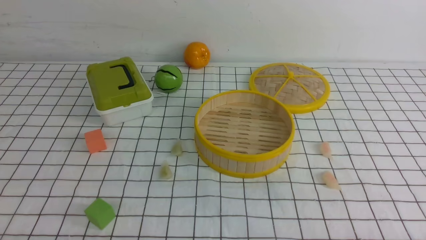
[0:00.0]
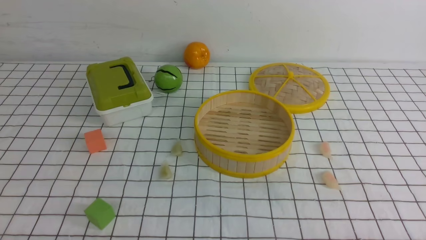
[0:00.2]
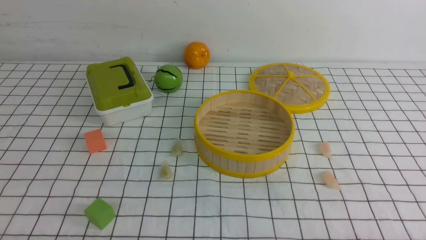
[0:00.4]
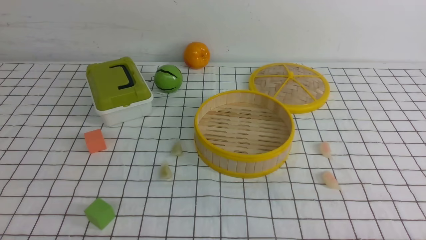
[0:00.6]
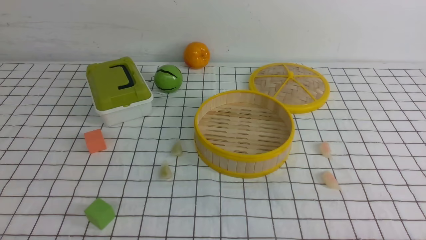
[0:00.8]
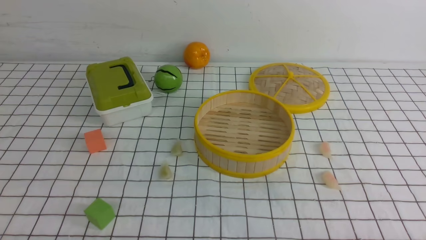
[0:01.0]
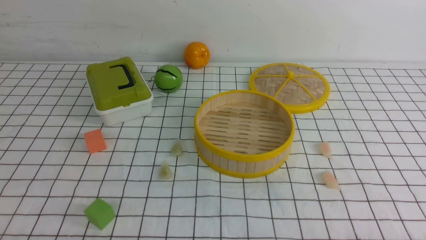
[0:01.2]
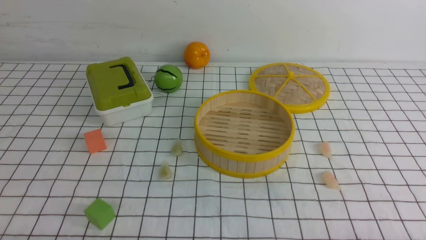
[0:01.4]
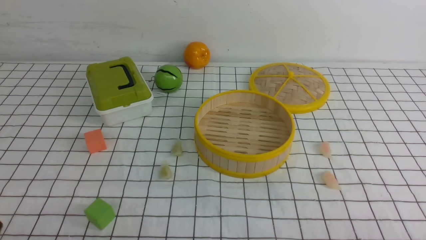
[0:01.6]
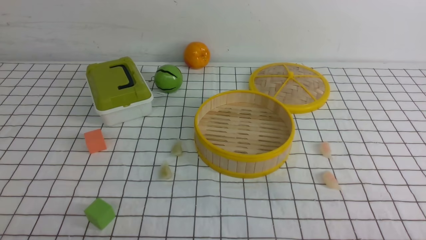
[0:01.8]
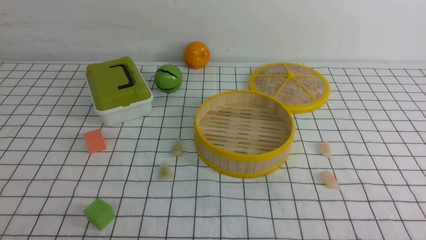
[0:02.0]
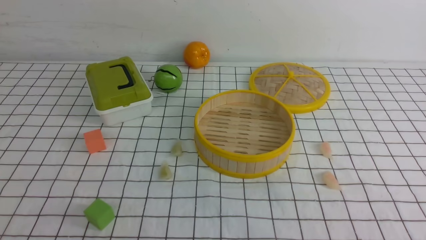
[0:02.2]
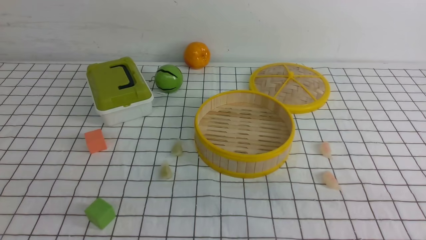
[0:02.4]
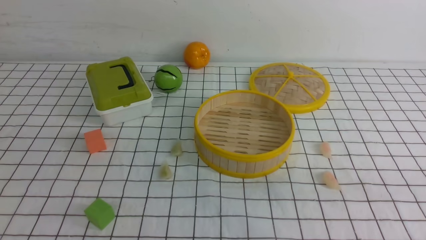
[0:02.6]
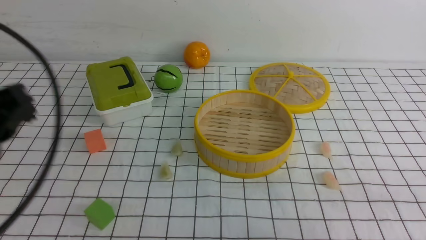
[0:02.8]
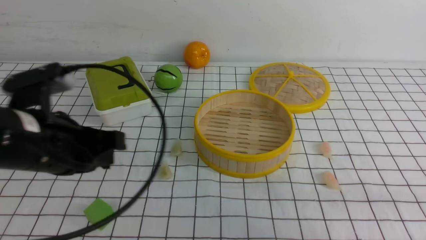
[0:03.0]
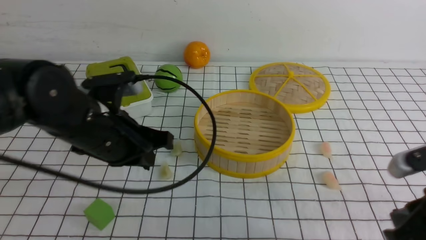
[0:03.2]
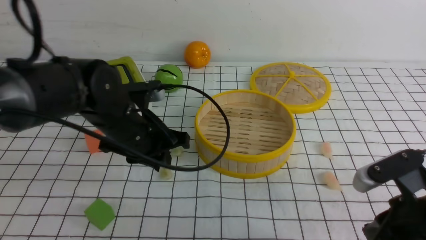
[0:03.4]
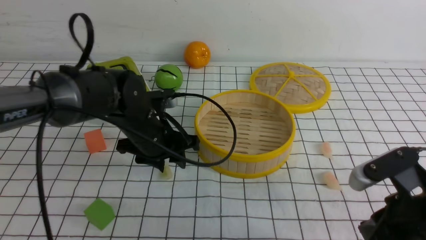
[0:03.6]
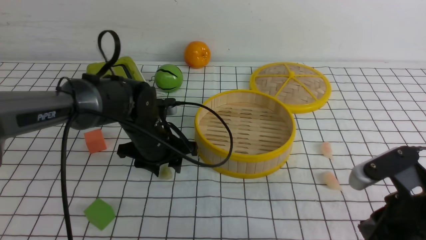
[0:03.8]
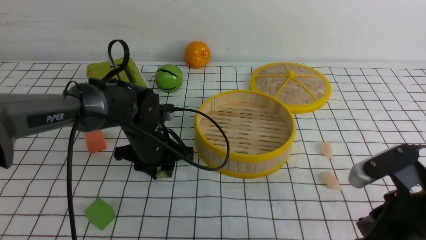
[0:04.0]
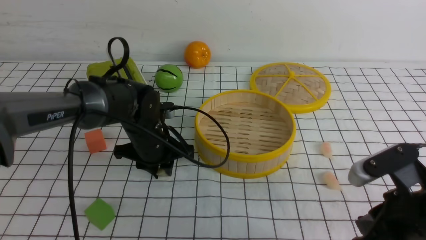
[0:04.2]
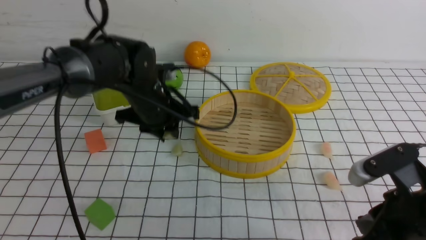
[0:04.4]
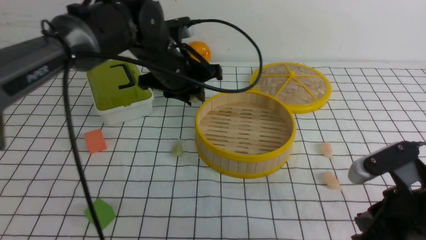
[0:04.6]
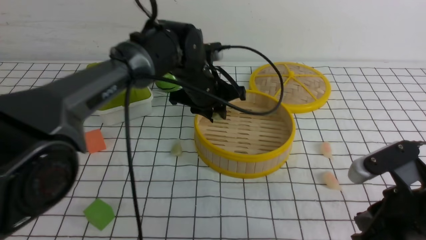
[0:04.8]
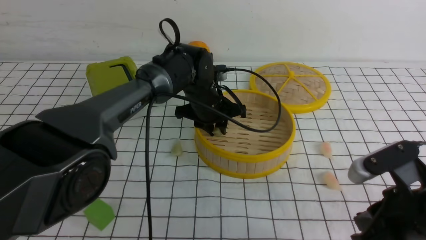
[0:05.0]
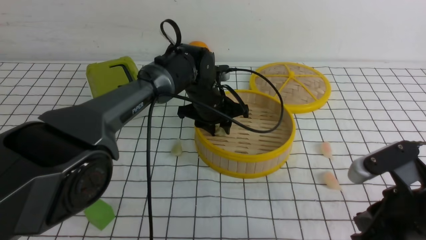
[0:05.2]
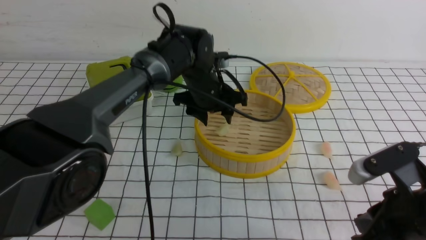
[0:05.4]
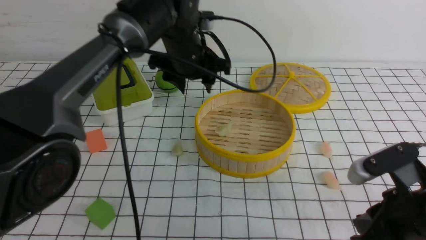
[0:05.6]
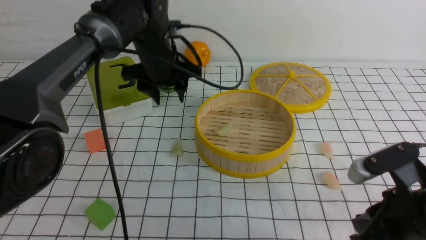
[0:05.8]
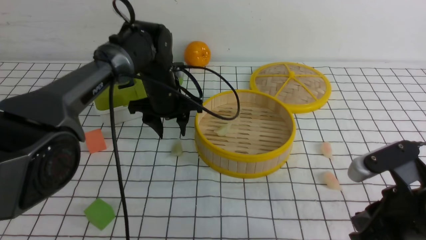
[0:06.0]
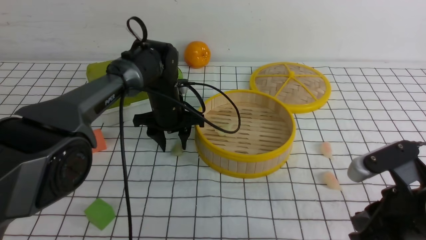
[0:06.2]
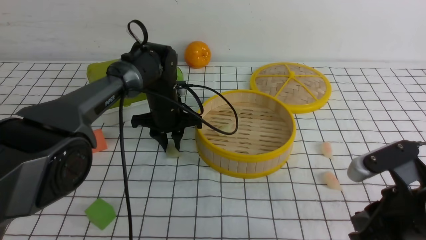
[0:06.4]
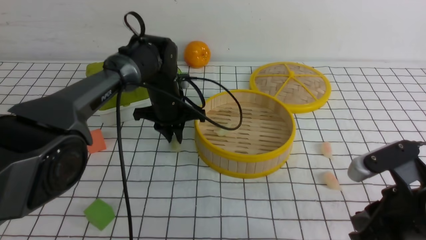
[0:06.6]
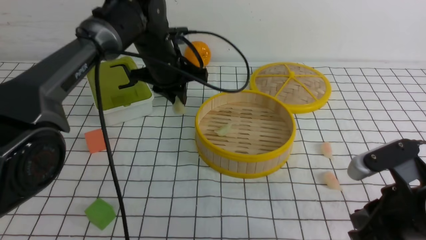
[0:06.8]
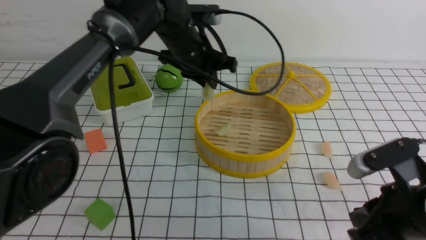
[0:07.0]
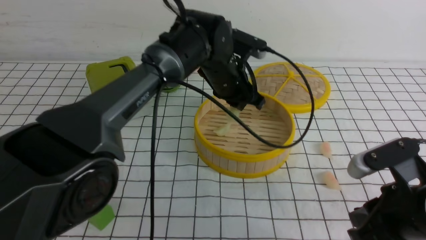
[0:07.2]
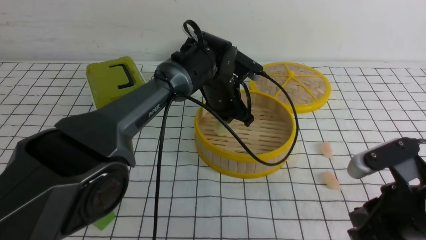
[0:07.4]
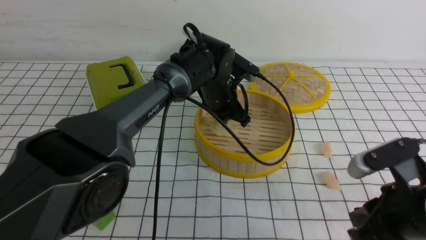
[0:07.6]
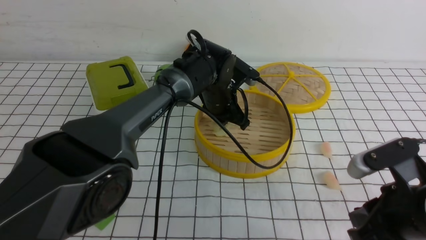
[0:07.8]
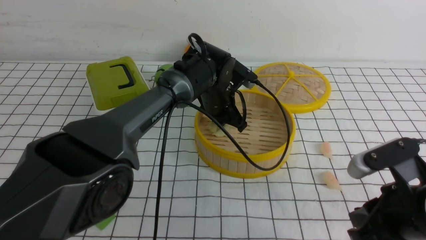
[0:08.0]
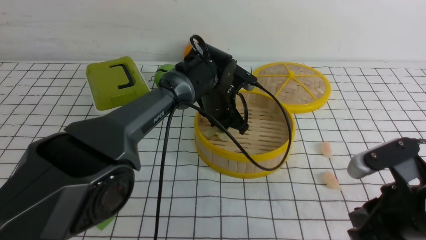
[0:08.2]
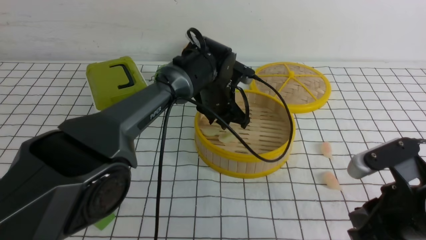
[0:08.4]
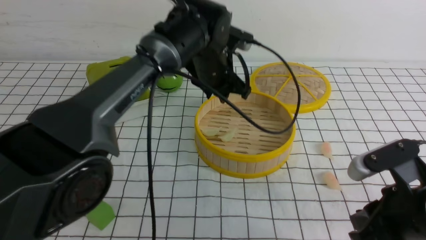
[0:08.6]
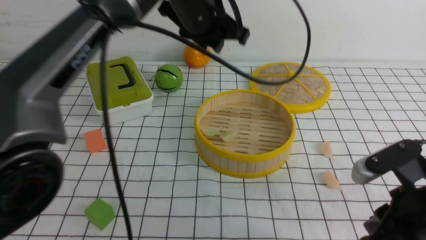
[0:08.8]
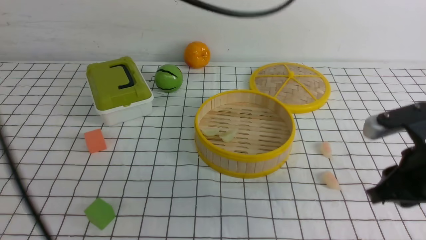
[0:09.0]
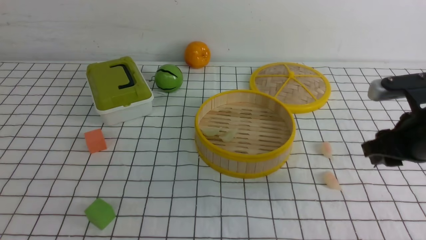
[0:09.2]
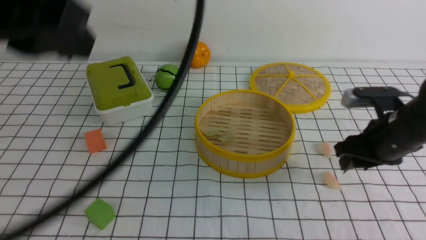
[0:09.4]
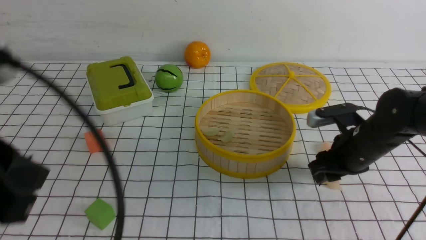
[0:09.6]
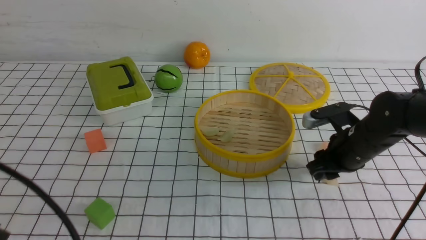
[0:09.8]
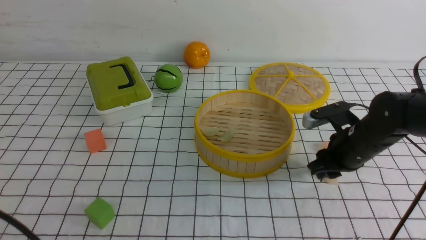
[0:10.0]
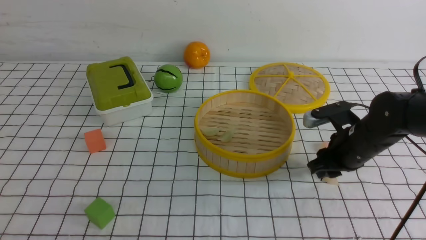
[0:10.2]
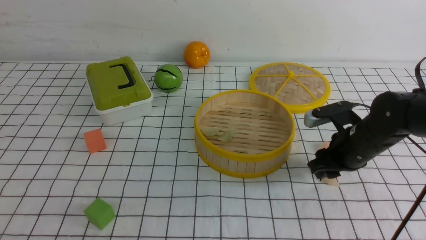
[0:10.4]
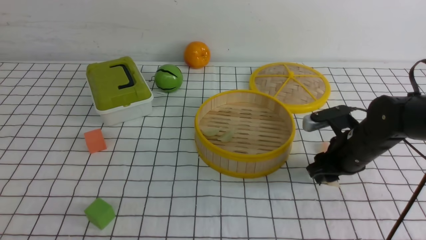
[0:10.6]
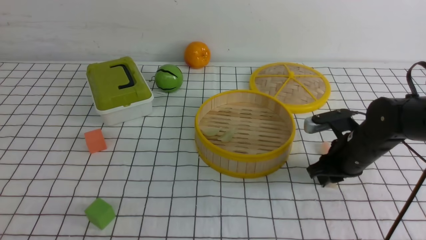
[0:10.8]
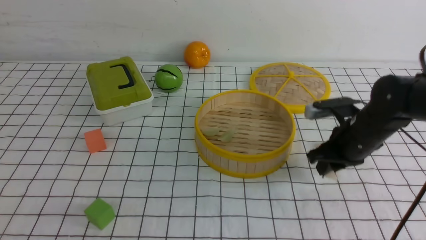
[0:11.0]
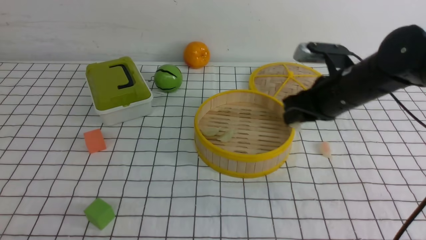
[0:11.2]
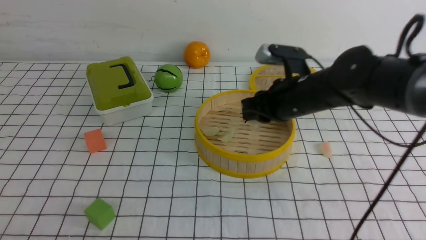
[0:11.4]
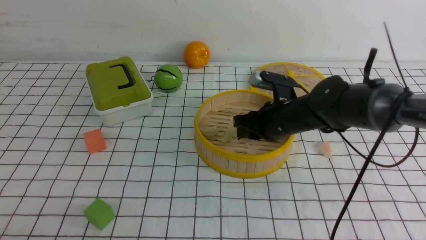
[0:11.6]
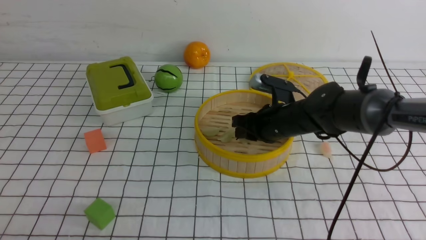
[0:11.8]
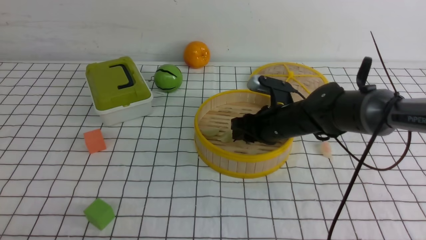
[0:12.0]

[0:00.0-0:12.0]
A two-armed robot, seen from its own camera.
Task of the whole recording: put the dumplings into the steamer on the table with the white tablecloth.
Step, 0:00.0 to 0:04.4: use the left arm to grab a dumpling.
Step, 0:04.6 to 0:05.8: use the left arm to put the dumpling into the steamer.
Step, 0:06.0 to 0:06.8: use the left arm to grab a dumpling.
Step, 0:07.2 to 0:08.6: use the left arm to put the dumpling into the steamer.
Step, 0:08.8 to 0:11.0: use the right arm to grab a dumpling.
0:01.6 to 0:03.0: The right gripper is displaced forward and upward by roughly 10 cm, and closes its fingers, while the left gripper travels forward and upward by approximately 20 cm, and closes its fingers.
0:03.0 to 0:04.4: The left gripper is displaced forward, to the right and downward by some 25 cm, and opens its fingers; the right gripper shifts about 10 cm to the left.
0:04.4 to 0:06.0: The left gripper is displaced forward by roughly 10 cm, goes to the right and returns, about 10 cm each way, and opens.
0:06.0 to 0:07.6: The left gripper swings up and down, about 10 cm each way, with 2 reversals, and closes its fingers.
0:07.6 to 0:09.0: The left gripper heads upward and backward, covering some 25 cm.
0:09.0 to 0:10.4: The left gripper is displaced backward, downward and to the left by about 40 cm, and closes up. Meanwhile the right gripper heads forward and downward, covering some 15 cm, and opens its fingers.
0:10.4 to 0:12.0: The right gripper heads to the left and forward, covering roughly 10 cm.

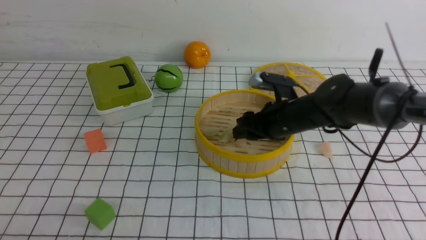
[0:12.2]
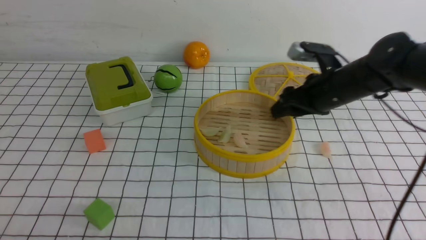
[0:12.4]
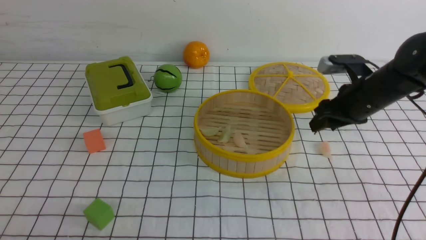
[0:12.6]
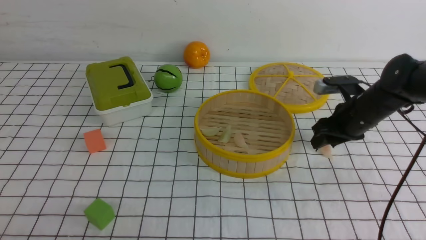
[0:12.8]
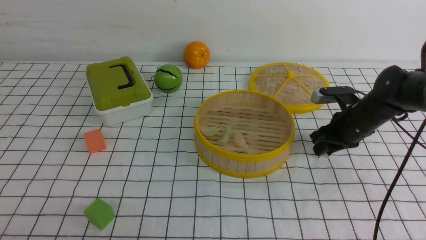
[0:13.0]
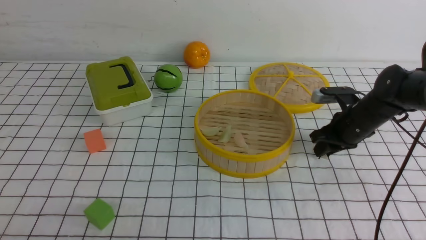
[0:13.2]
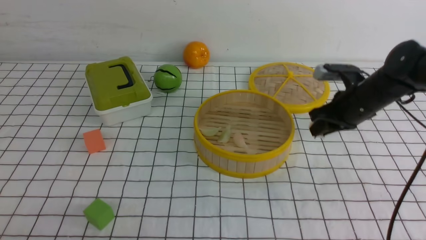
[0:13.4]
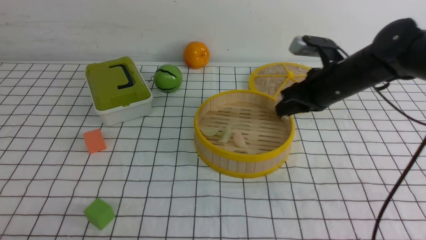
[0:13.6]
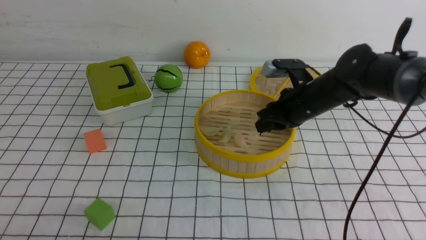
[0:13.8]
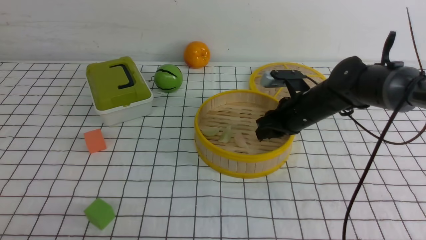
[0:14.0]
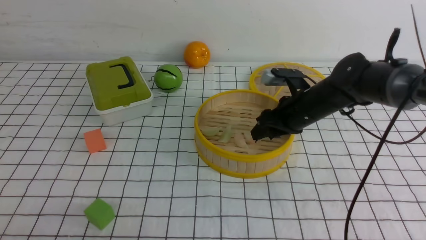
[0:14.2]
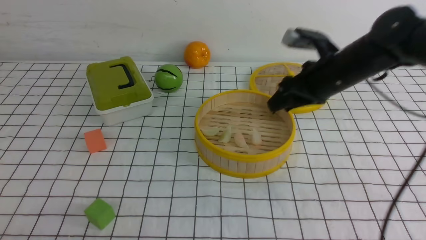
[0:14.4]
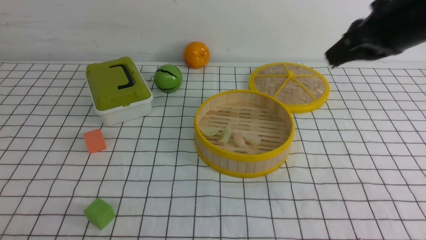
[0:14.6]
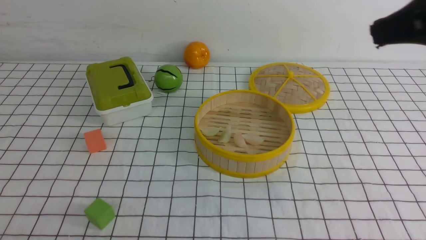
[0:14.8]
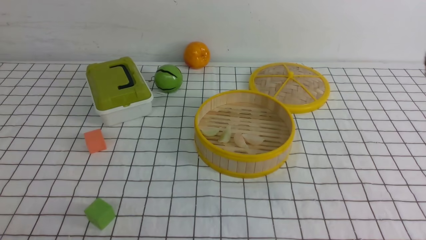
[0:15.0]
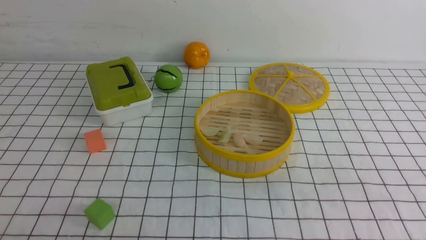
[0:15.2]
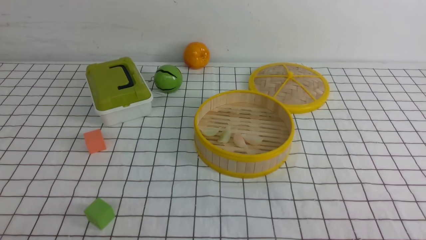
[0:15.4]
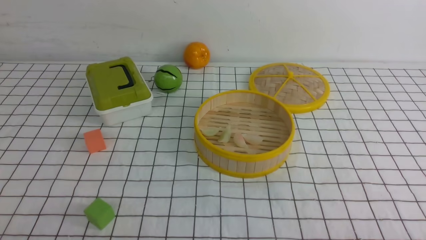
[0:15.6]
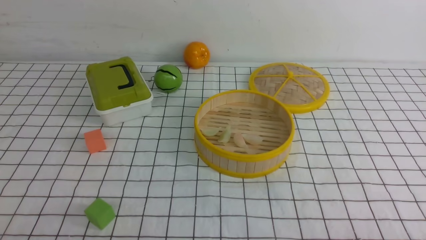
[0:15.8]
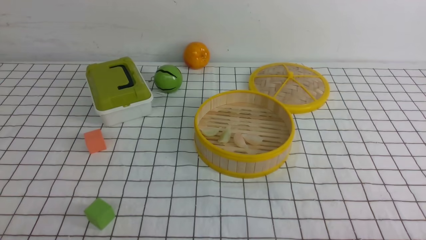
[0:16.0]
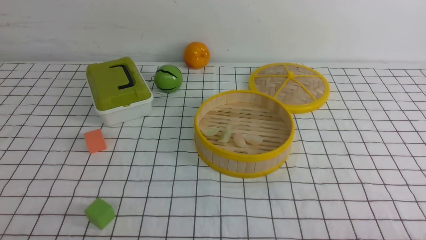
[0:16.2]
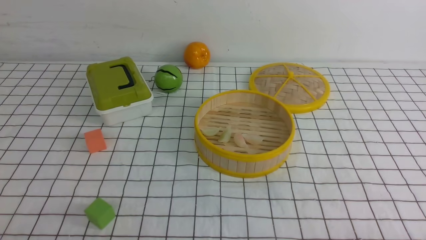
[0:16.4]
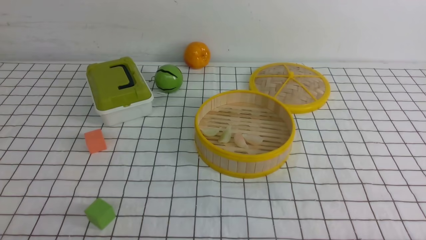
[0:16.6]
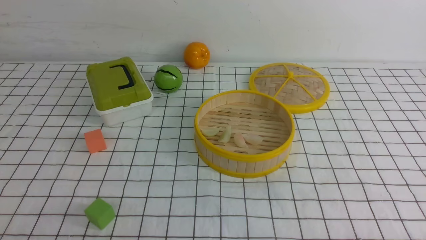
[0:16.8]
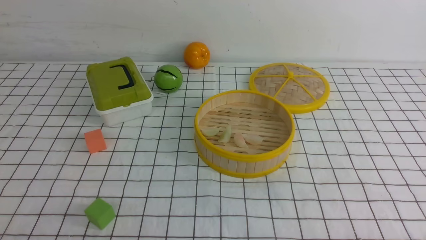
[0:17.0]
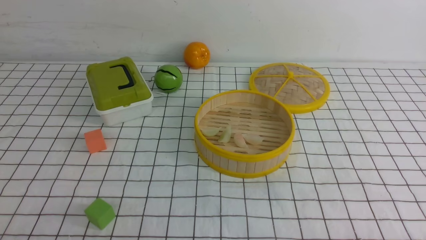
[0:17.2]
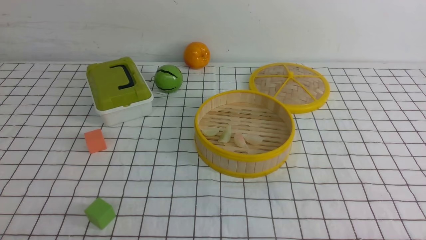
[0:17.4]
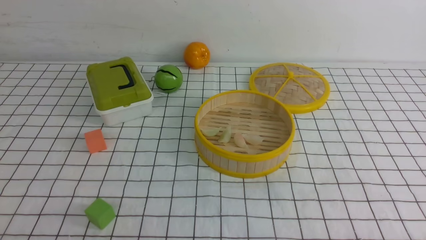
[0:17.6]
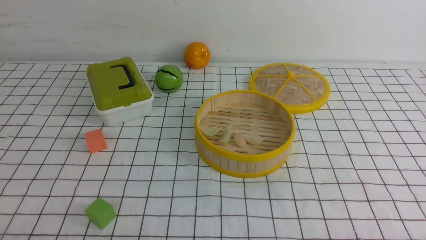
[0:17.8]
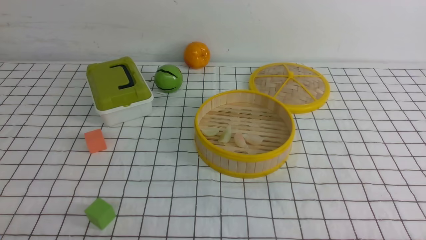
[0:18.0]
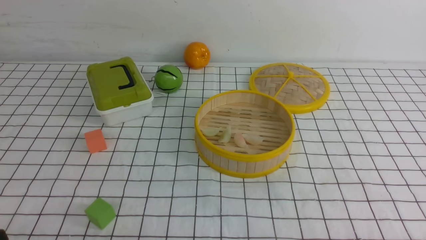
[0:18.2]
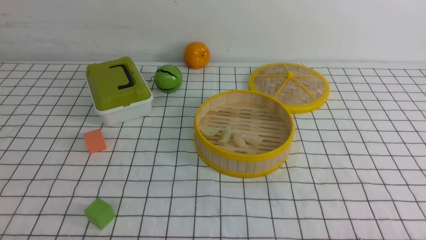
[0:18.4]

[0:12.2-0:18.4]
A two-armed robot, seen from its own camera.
Task of the whole recording: put the dumplings into the steamer on the table with the white tablecloth.
Step, 0:12.4 to 0:13.6: use the right arm to grab a dumpling.
Step, 0:13.8 to 0:14.6: use the right arm to put the dumpling into the steamer.
0:12.2 to 0:13.8: The right gripper travels to the right and back again, some 15 cm each way, and closes its fingers.
0:13.8 to 0:15.4: The right gripper shifts some 35 cm backward, and closes up.
